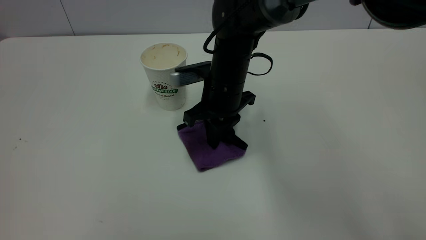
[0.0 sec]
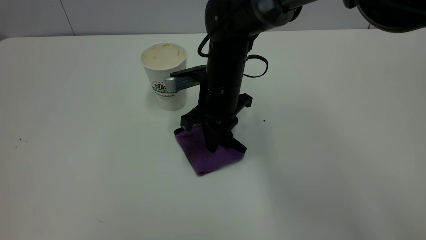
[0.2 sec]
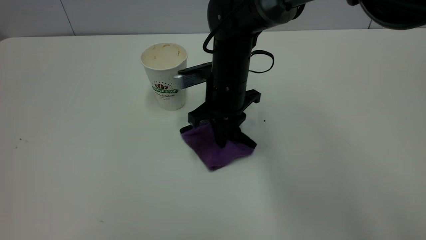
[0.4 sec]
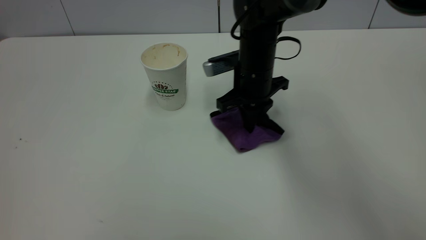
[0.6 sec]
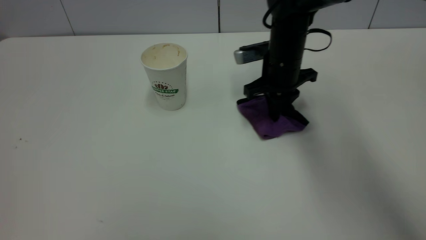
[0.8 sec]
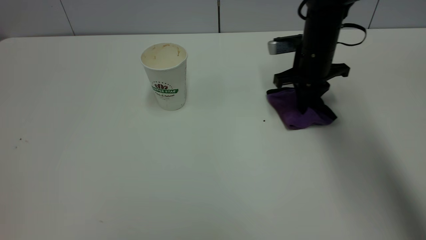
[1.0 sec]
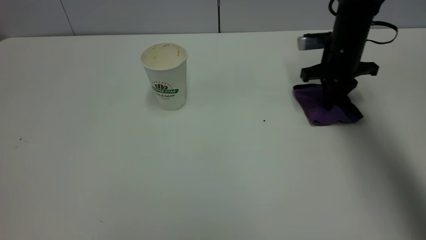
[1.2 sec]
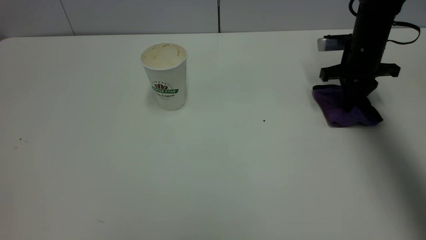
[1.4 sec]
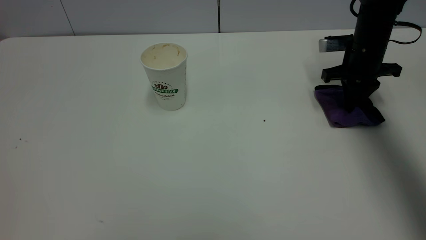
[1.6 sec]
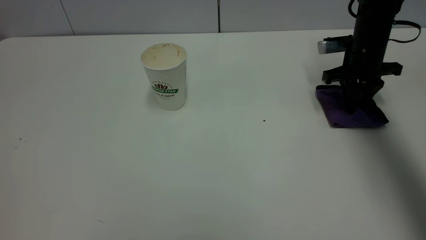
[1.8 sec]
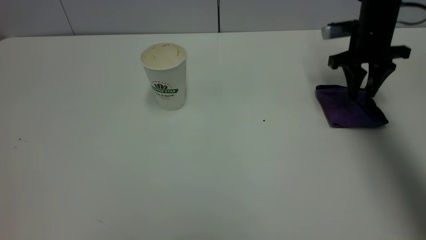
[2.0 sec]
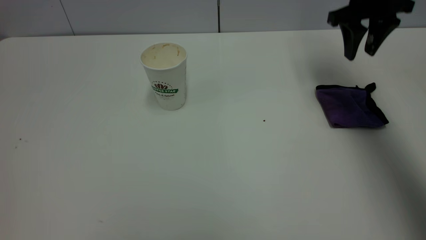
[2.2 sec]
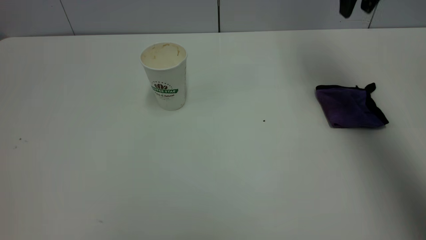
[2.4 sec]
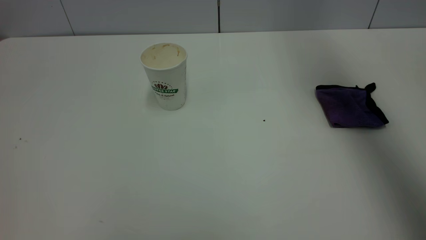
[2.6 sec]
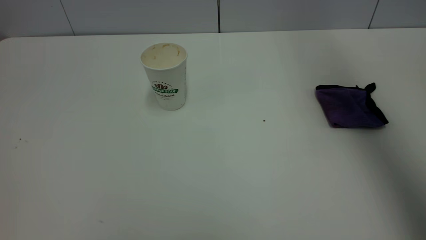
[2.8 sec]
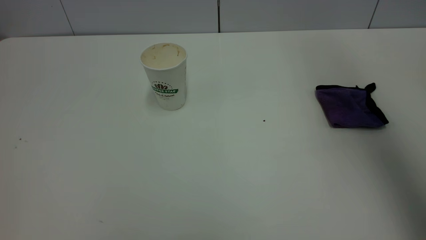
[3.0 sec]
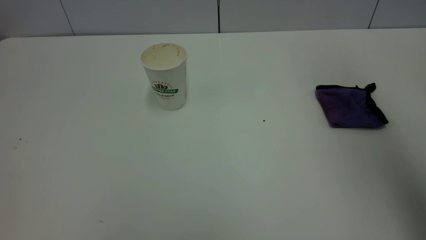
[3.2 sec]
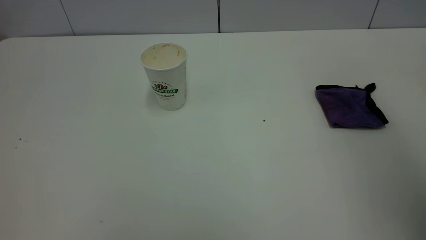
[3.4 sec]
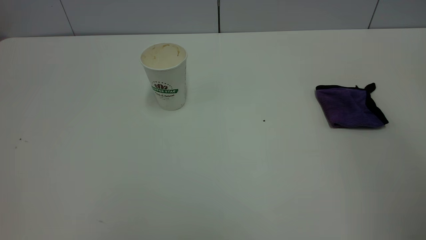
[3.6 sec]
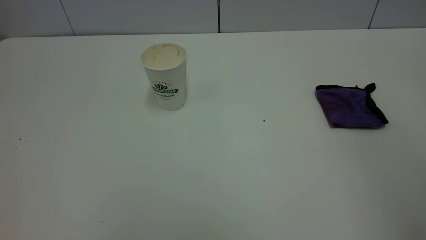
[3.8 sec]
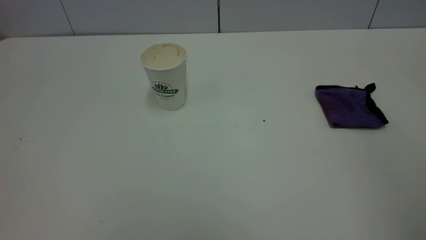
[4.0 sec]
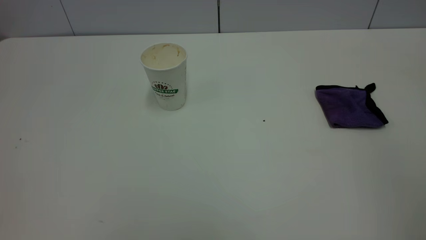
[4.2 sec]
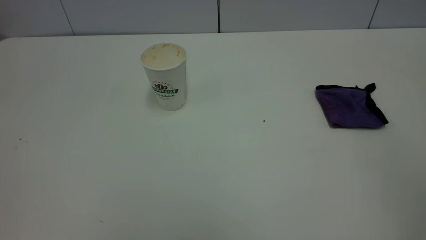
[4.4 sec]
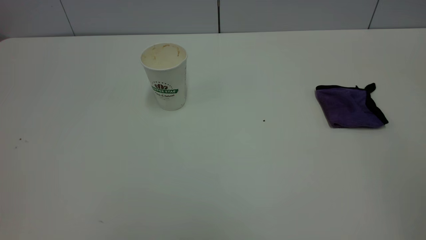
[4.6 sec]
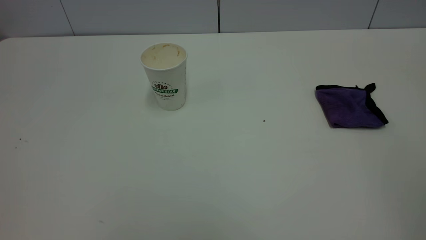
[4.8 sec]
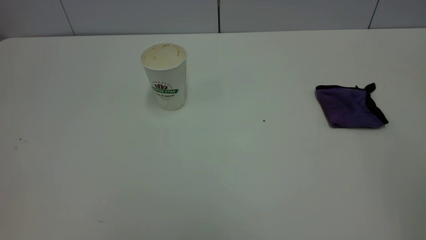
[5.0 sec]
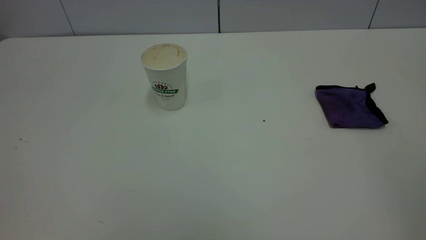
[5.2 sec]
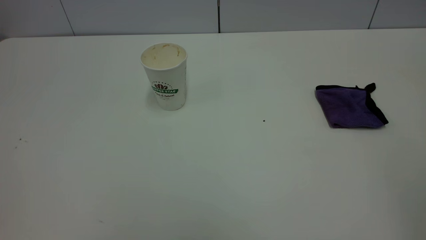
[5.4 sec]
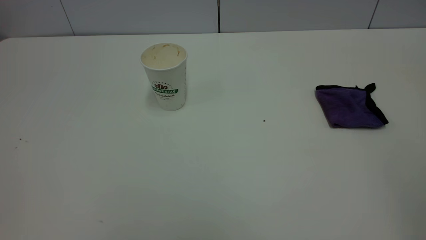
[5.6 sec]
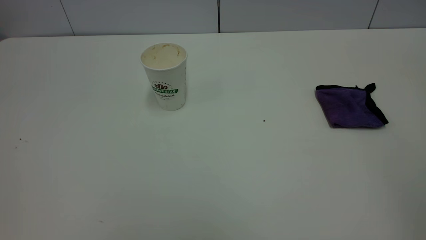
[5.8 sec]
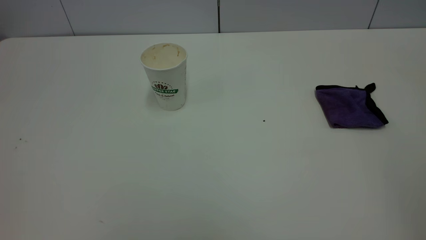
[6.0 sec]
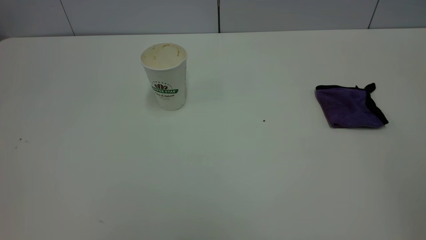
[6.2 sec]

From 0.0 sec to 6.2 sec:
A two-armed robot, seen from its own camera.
Task of the whole recording: the left gripper pick up the fallen cup and place it upright, the right gripper grasp the purple rag and wipe the tea stain on the table, the right gripper put the purple rag back in its original position.
Step, from 0.0 sec to 2.2 sec: Wipe the stains off the table with a rag.
From 0.0 sec to 1.6 sec: The right gripper is displaced to the right by about 25 cm.
From 1.6 sec to 3.2 sec: The right gripper moves upward and backward, some 40 cm, and opens.
From 3.2 sec to 4.6 sec: The right gripper is displaced backward by some 25 cm.
